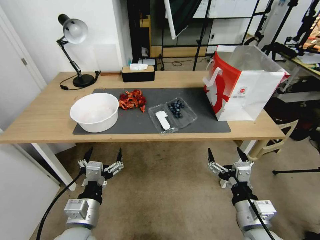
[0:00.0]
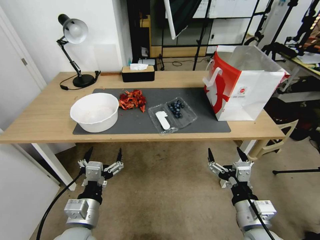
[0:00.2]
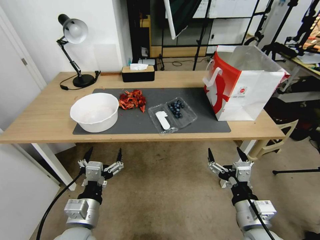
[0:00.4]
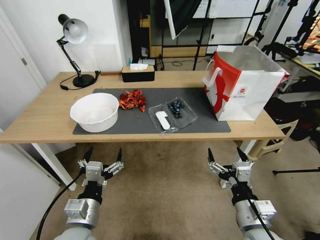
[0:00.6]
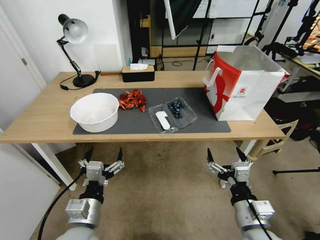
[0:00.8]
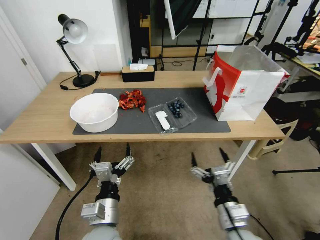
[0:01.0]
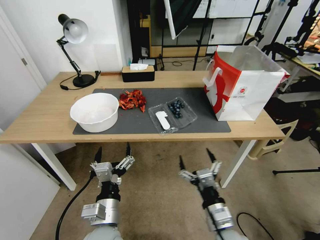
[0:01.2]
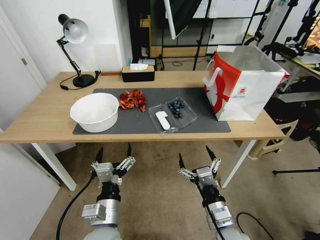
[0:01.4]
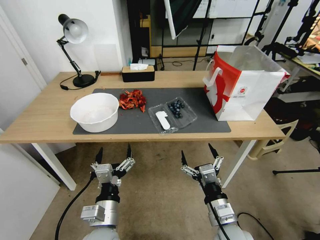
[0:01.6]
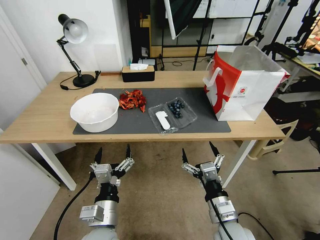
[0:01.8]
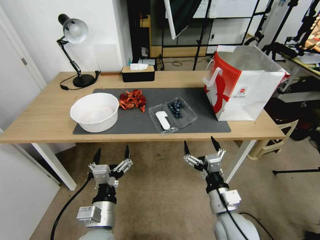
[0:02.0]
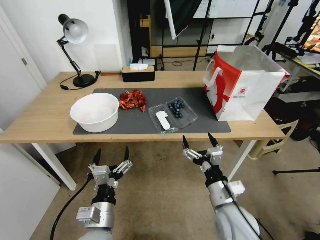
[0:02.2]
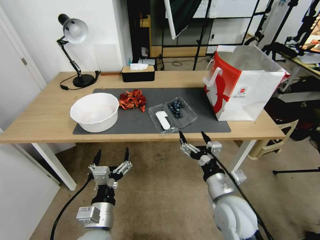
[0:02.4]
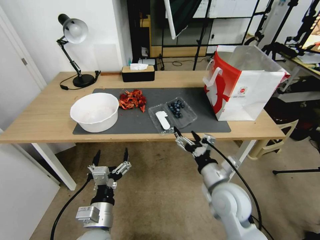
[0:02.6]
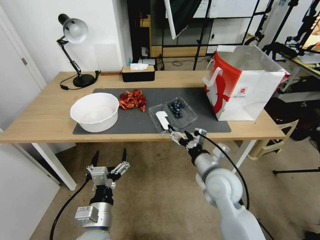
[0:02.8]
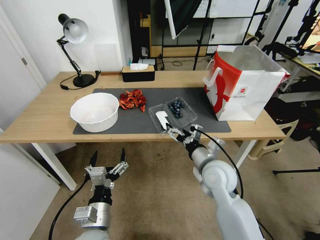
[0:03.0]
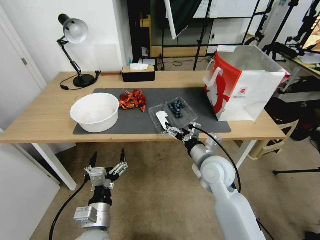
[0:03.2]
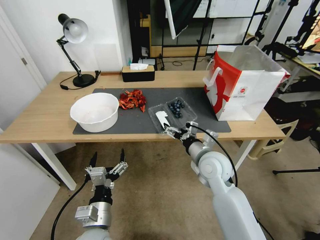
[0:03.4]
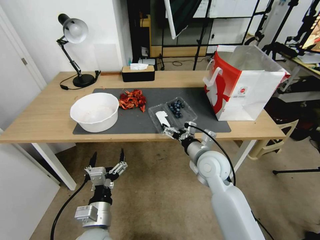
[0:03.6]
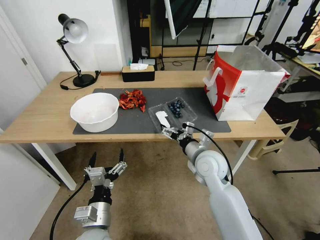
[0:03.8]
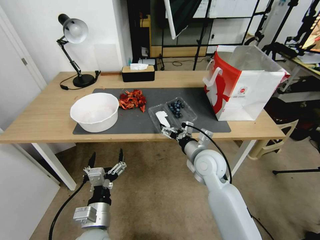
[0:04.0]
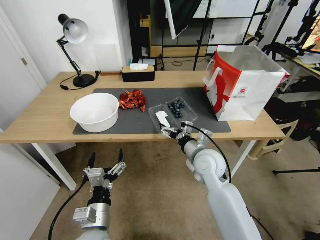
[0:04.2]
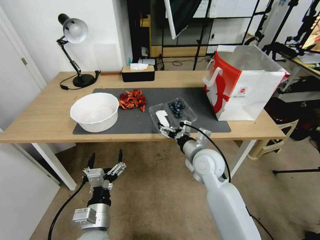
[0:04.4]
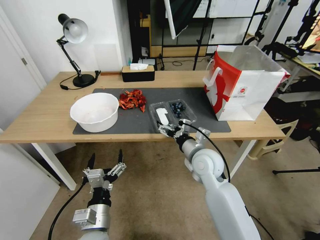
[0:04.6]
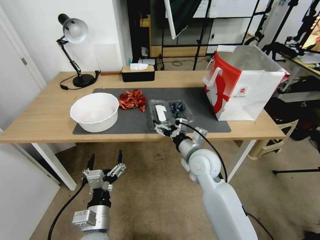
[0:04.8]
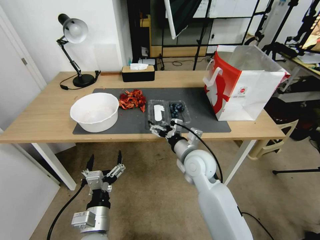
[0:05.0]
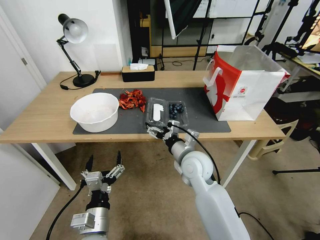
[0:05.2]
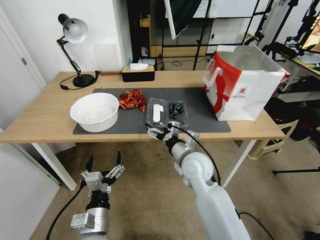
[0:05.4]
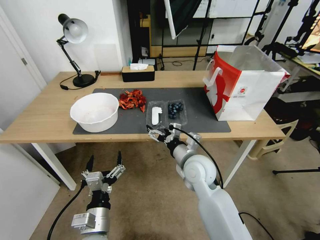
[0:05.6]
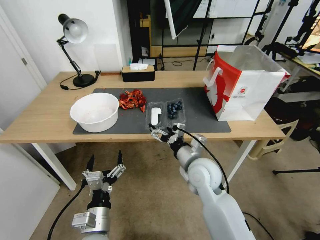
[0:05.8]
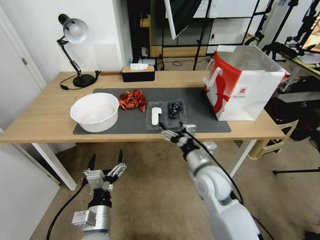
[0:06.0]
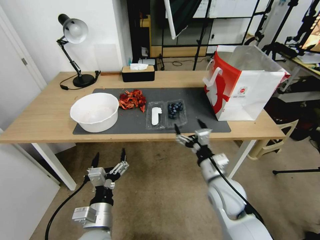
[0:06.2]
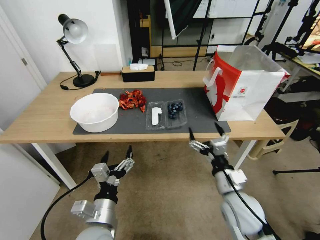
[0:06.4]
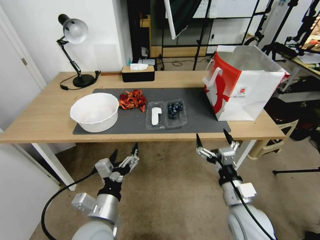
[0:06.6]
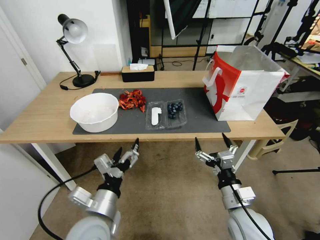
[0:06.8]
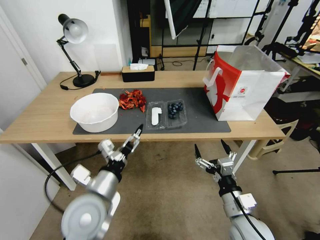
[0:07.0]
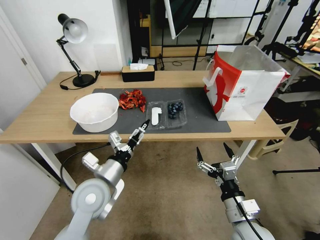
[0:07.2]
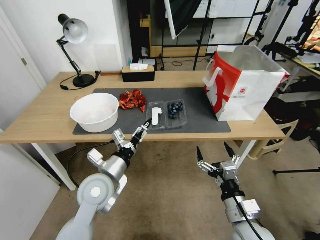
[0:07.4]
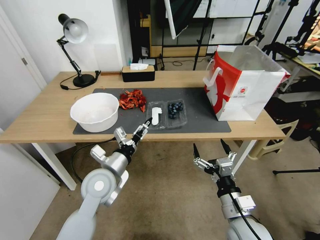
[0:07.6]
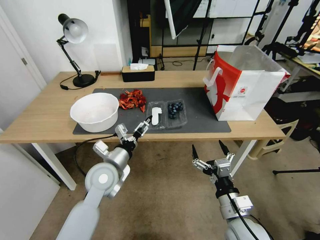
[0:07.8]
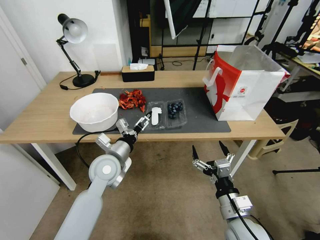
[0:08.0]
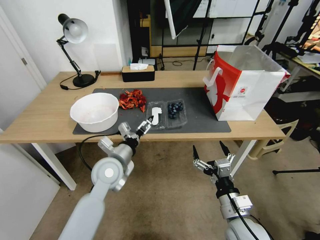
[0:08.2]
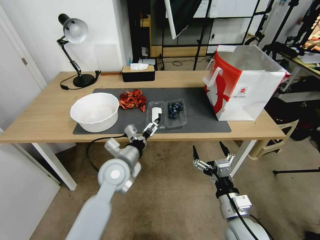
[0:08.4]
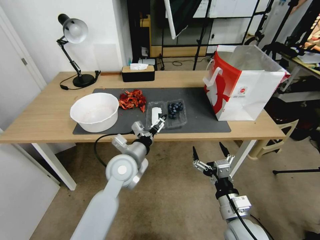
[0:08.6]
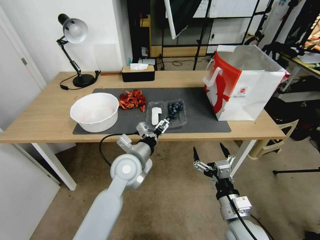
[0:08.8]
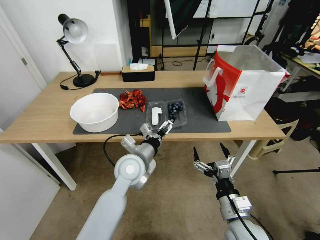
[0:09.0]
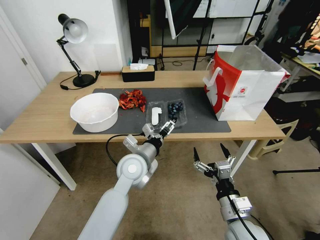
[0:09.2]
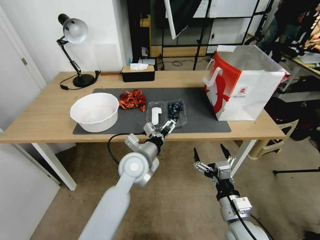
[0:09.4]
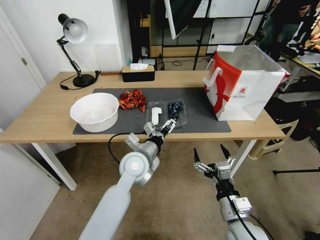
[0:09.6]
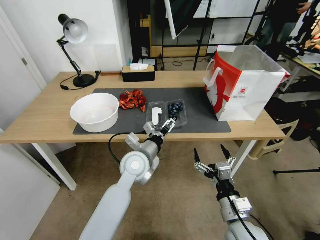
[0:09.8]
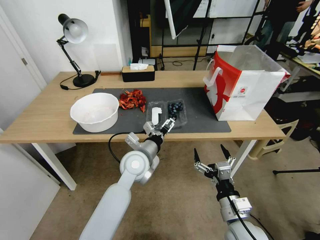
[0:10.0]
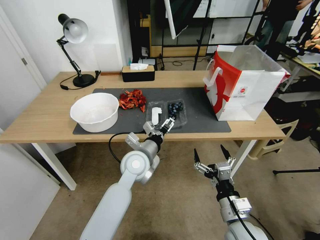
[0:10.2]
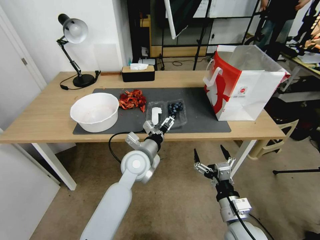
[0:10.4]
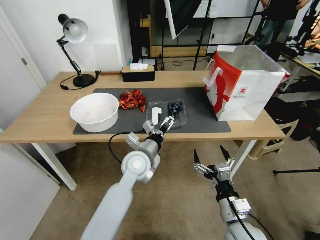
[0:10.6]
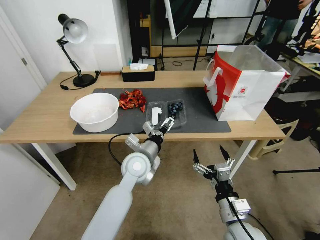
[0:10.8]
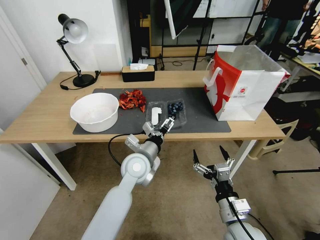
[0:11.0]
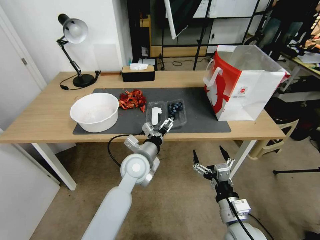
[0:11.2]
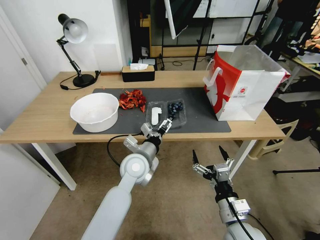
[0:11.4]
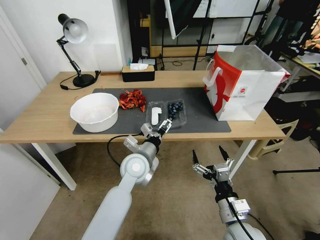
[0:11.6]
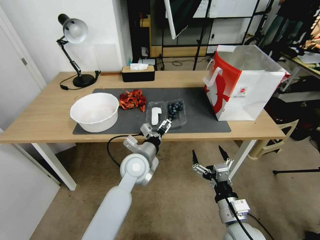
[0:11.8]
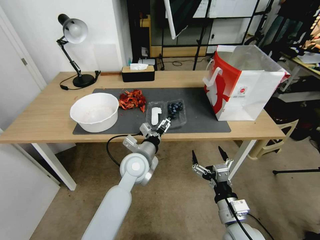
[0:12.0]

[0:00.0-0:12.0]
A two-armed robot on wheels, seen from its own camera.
Task of the whole recording: Close the takeout container lid, then place the container into the takeout bag.
0:01.6 to 0:03.0: The right gripper heads forward, covering approximately 15 cm.
0:03.0 to 0:04.4: The grippers stay close to where they were, moving slightly.
0:04.4 to 0:06.0: The right gripper heads backward, covering roughly 5 cm.
0:06.0 to 0:07.6: The left gripper moves forward and upward, some 15 cm; the right gripper travels backward and to the right by some 15 cm.
0:07.6 to 0:09.0: The left gripper goes some 10 cm to the right.
0:09.0 to 0:10.4: There are only small adjustments of the grippers.
0:10.4 to 0:12.0: The two grippers keep their place.

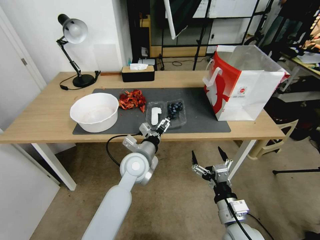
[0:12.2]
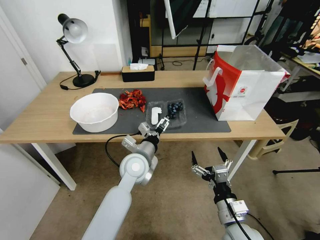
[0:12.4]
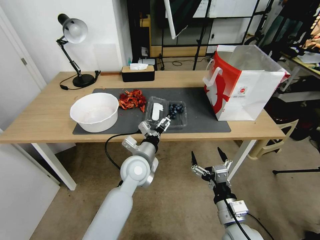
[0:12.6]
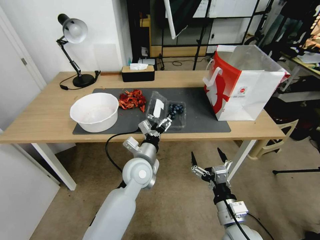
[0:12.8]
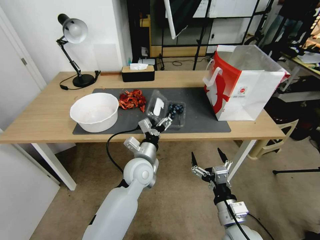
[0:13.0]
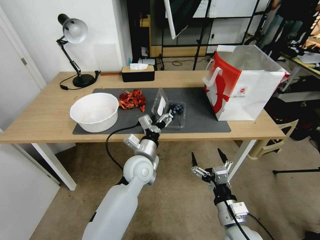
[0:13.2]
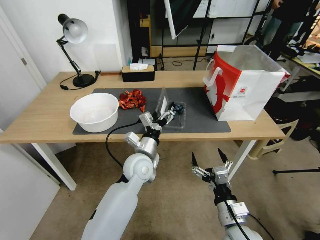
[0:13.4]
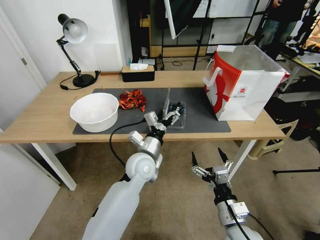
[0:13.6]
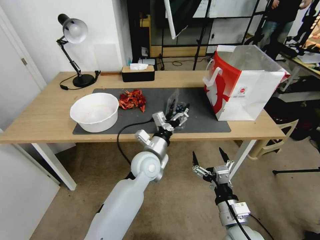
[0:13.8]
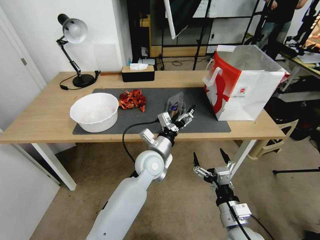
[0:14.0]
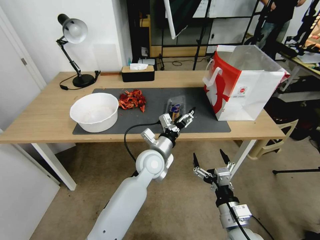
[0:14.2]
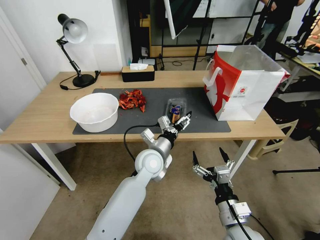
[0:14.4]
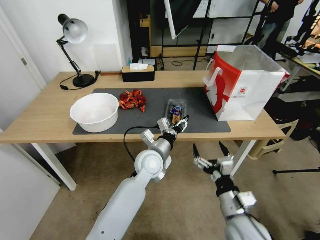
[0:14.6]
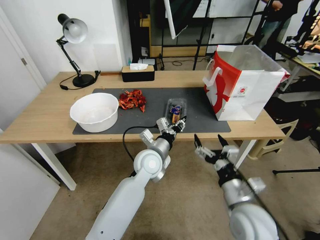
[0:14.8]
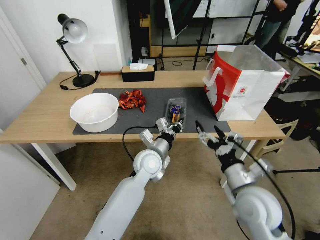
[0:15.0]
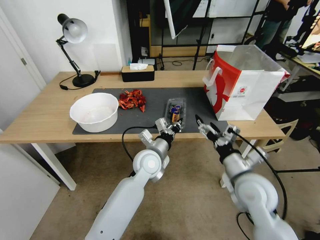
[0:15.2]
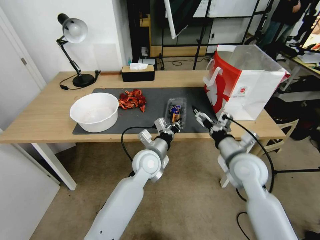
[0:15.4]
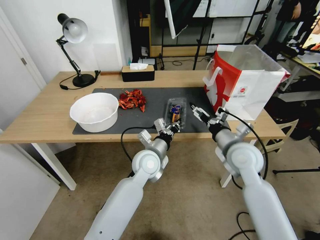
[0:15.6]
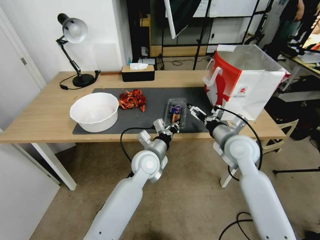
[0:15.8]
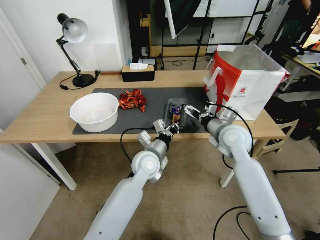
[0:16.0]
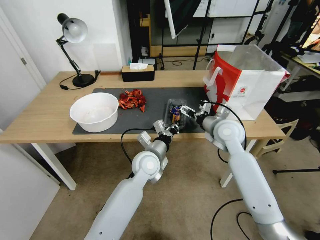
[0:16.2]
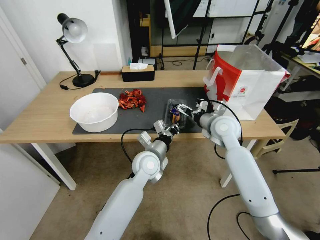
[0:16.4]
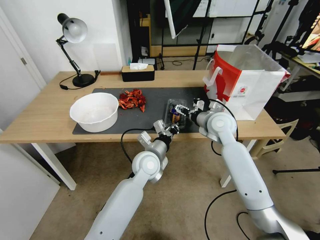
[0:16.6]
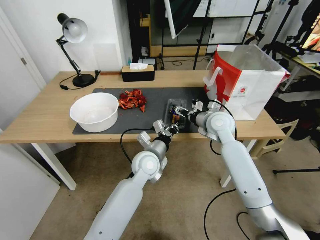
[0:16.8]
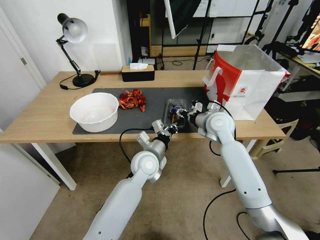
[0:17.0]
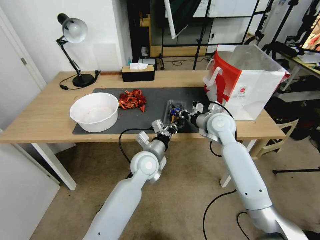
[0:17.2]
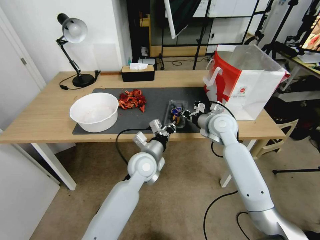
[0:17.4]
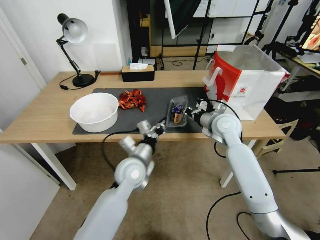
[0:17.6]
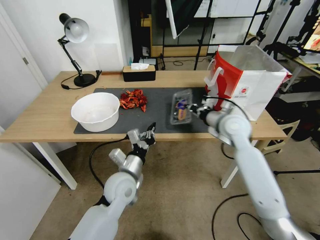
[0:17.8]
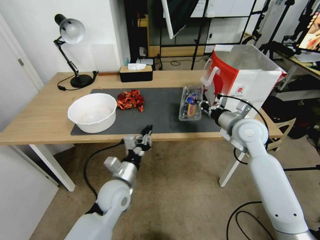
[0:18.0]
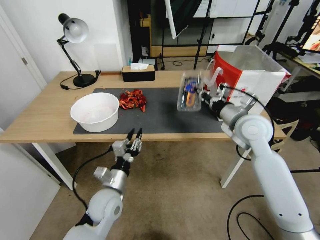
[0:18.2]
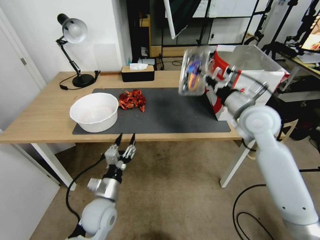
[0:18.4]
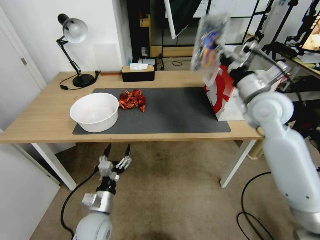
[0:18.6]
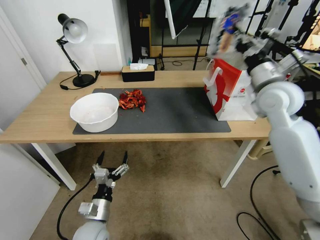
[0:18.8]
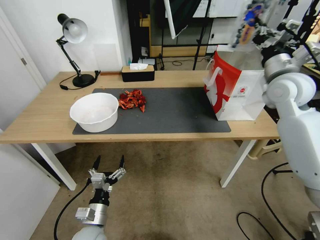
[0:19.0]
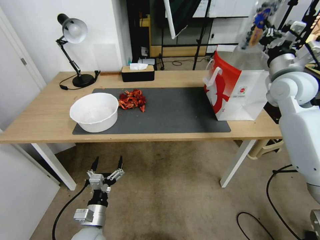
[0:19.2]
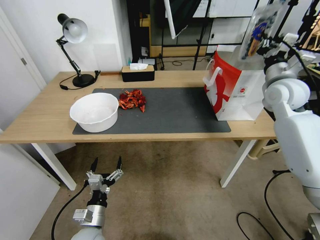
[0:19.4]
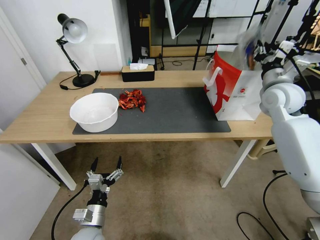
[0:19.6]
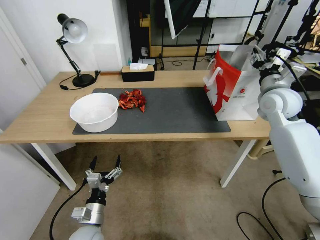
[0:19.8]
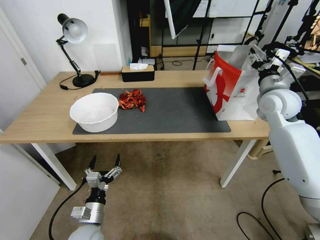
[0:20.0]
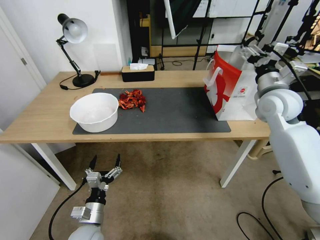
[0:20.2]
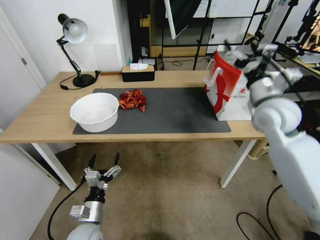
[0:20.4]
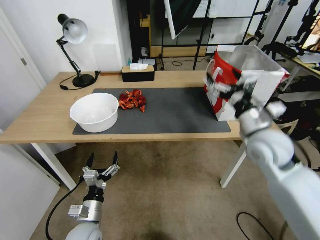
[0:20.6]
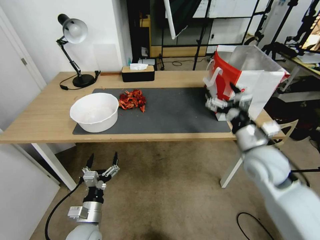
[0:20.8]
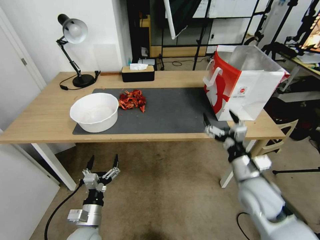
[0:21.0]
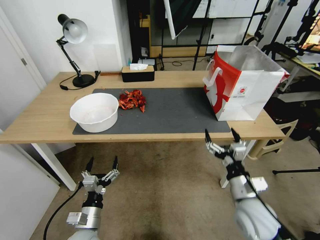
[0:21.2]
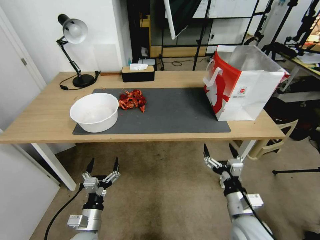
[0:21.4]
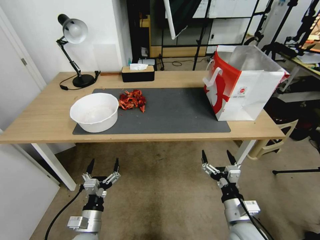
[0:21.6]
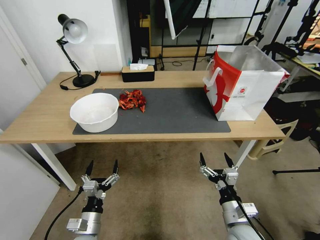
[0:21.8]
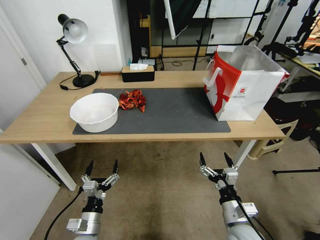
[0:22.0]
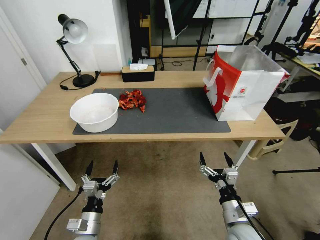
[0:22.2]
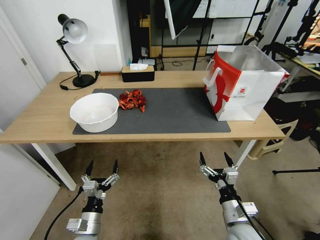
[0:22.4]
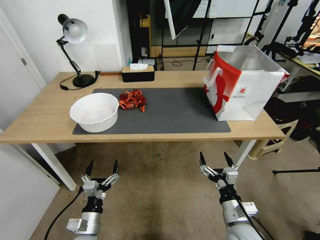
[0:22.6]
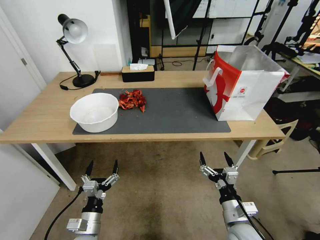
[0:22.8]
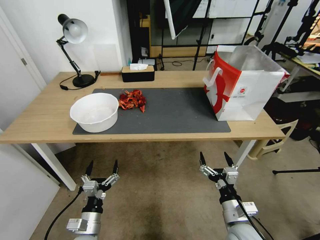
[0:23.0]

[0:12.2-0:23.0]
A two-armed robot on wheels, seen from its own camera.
Task of the whole recording: Close the takeout container lid, then place the container into the takeout bag.
0:13.8 to 0:15.2: The left gripper closes its fingers. The right gripper heads forward and upward, covering about 15 cm.
0:15.2 to 0:16.8: The right gripper is displaced forward by some 20 cm.
0:16.8 to 0:18.4: The right gripper moves upward, backward and to the right, roughly 15 cm, and closes. Meanwhile the left gripper is displaced to the left, backward and downward by some 20 cm, and opens its fingers.
0:18.4 to 0:20.0: The right gripper goes about 10 cm to the right and forward, and opens. Meanwhile the left gripper heads backward, covering some 5 cm, and opens up.
0:20.0 to 0:21.4: The right gripper heads backward and downward, covering some 35 cm.
0:21.4 to 0:23.0: The grippers move only a little.
